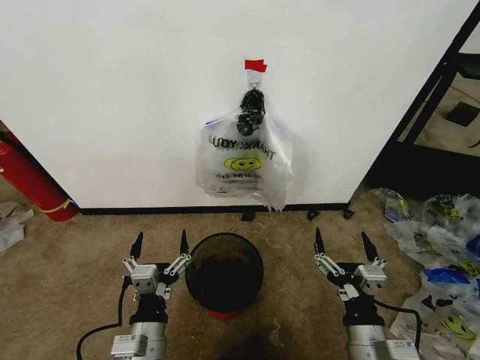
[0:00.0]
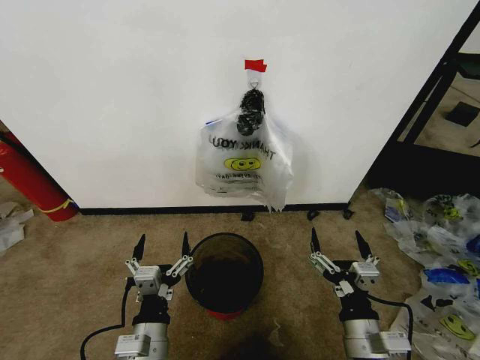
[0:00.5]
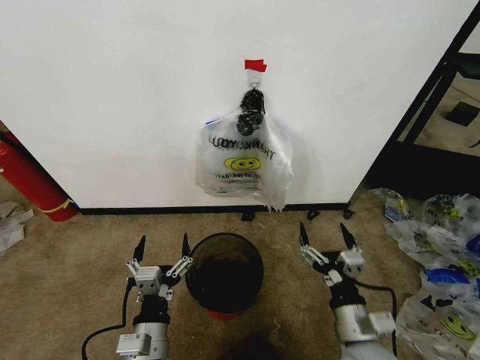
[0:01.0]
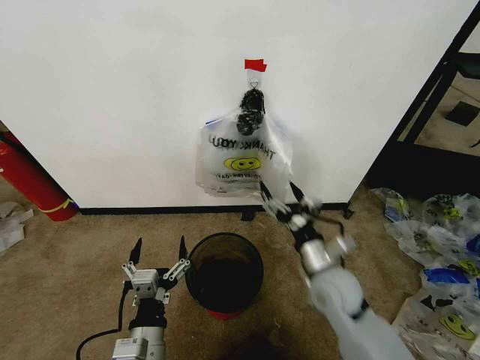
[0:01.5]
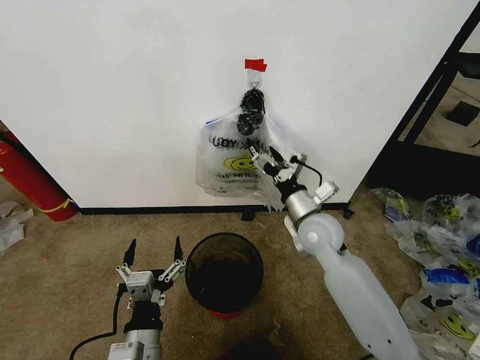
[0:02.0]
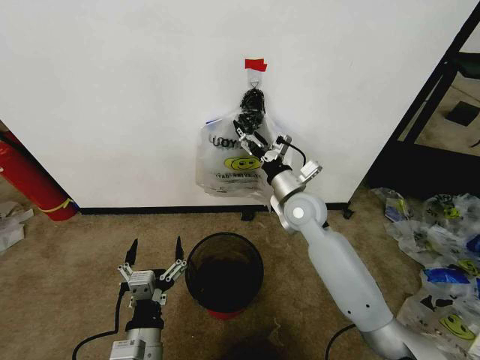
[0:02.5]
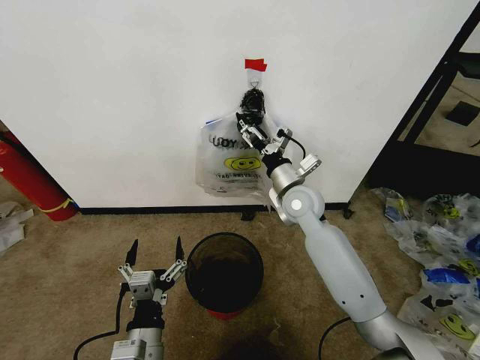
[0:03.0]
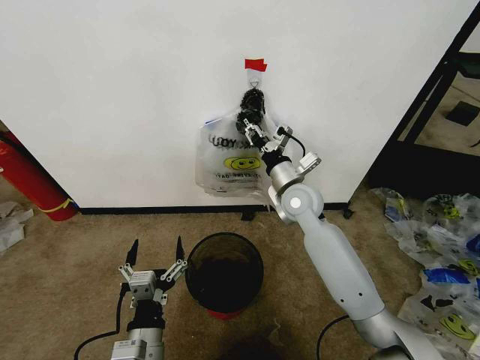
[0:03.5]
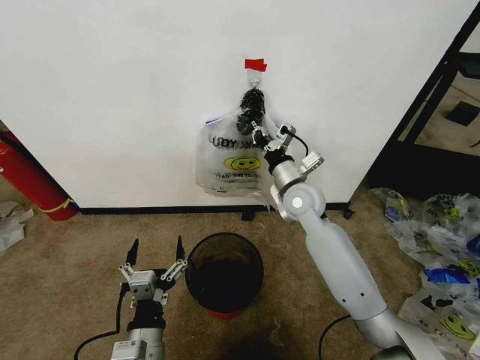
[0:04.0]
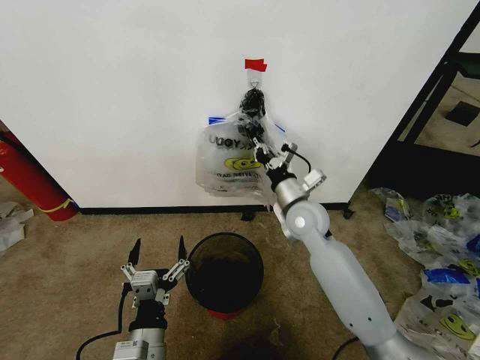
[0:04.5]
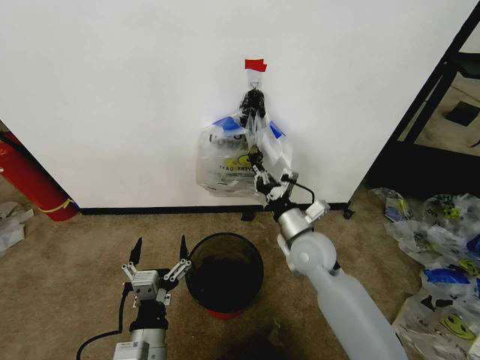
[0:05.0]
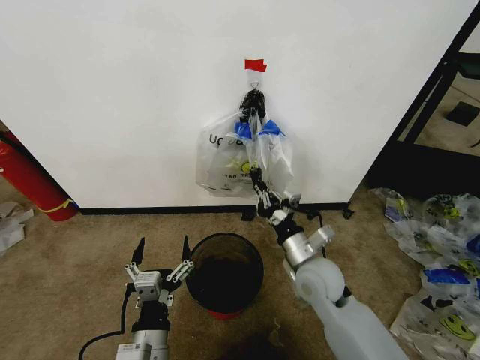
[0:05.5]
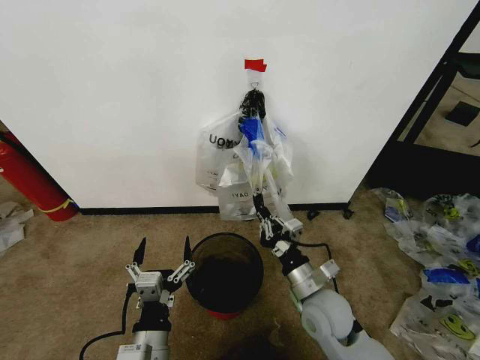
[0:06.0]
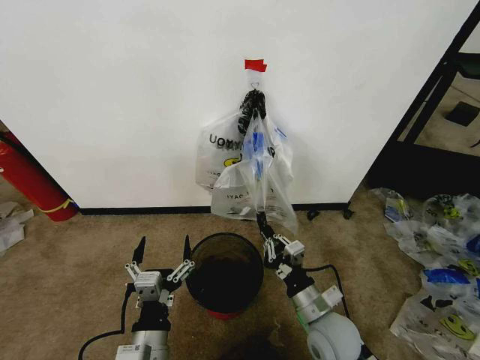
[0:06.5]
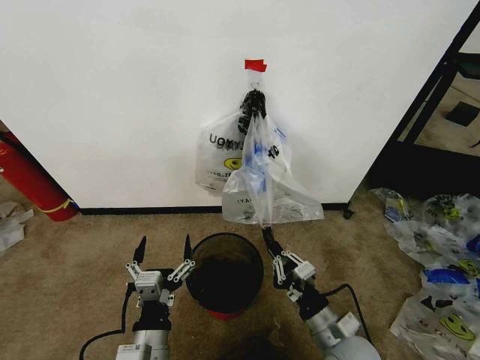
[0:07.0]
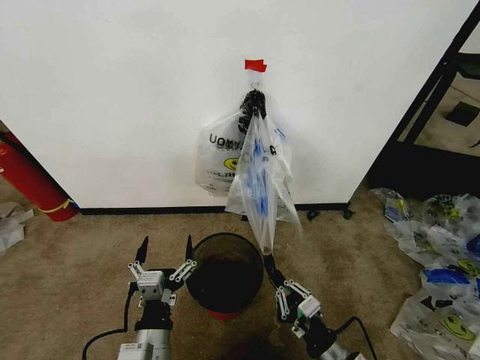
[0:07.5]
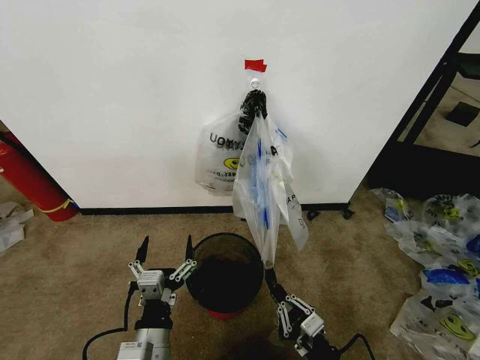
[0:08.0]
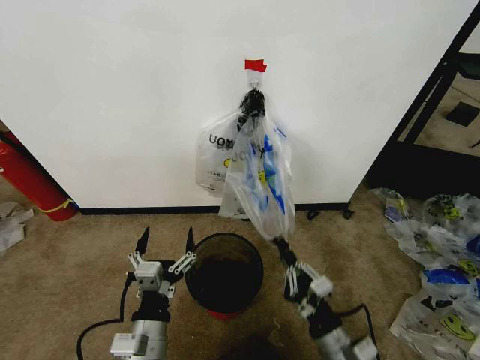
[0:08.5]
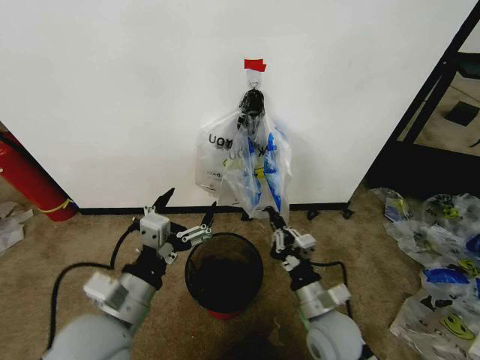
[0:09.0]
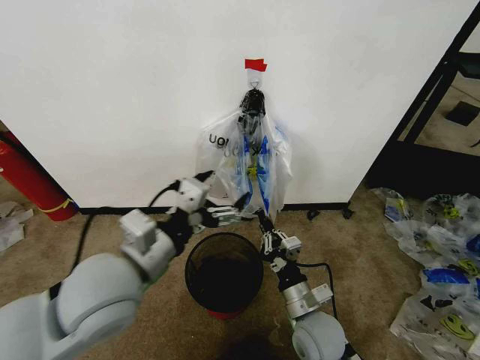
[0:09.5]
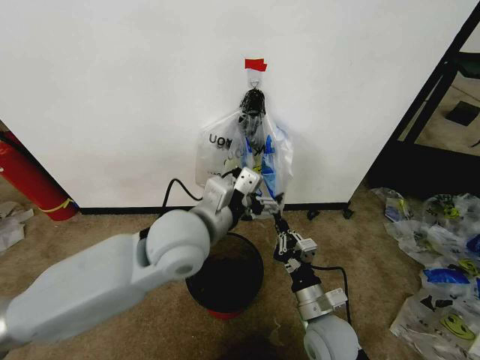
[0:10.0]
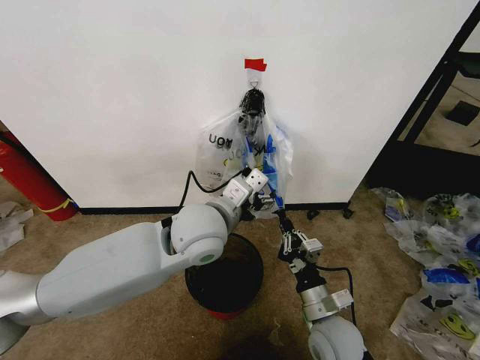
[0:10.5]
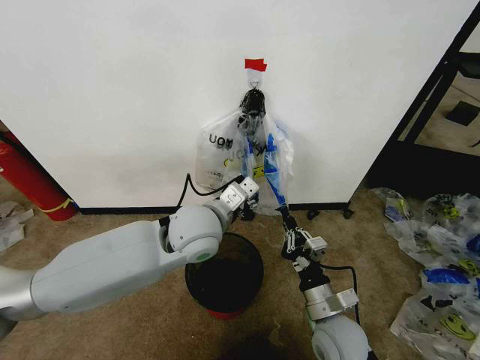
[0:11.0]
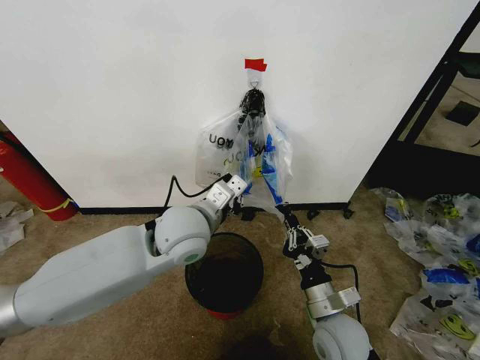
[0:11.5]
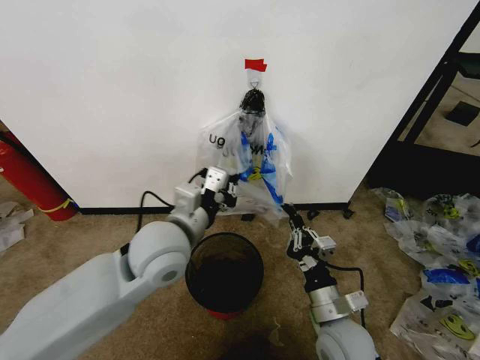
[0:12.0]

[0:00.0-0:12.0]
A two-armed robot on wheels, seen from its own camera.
Task of the whole recording: Pick up the garbage bag from the wall and place it over the trash bin.
0:02.0 to 0:04.0: The right gripper goes approximately 5 cm forward, and closes.
0:04.0 to 0:06.0: The right gripper heads backward and downward, covering roughly 25 cm.
0:06.0 to 0:08.0: The right gripper goes about 15 cm backward and downward.
0:08.0 to 0:10.0: The right gripper is displaced forward by some 10 cm, while the left gripper travels upward and forward by roughly 25 cm.
0:10.0 to 0:12.0: The left gripper closes up.

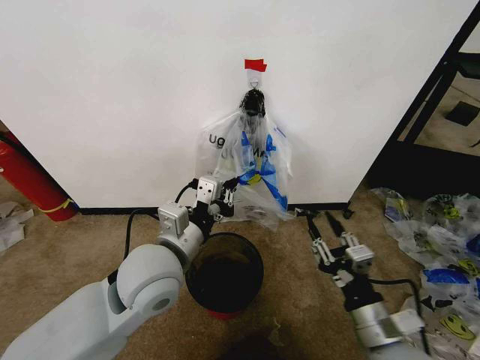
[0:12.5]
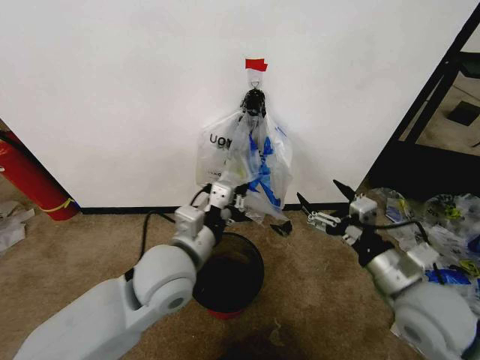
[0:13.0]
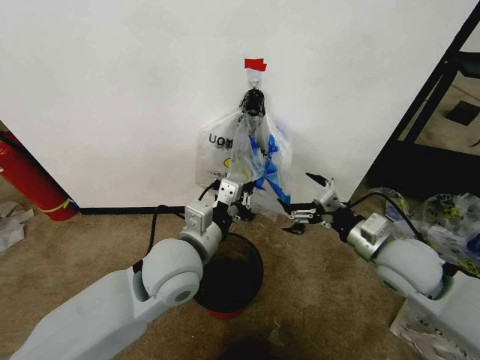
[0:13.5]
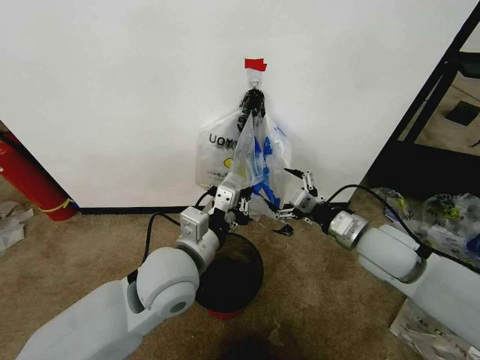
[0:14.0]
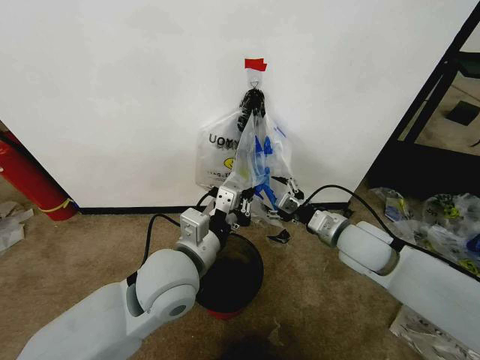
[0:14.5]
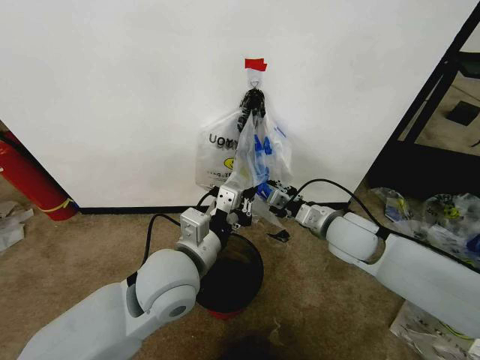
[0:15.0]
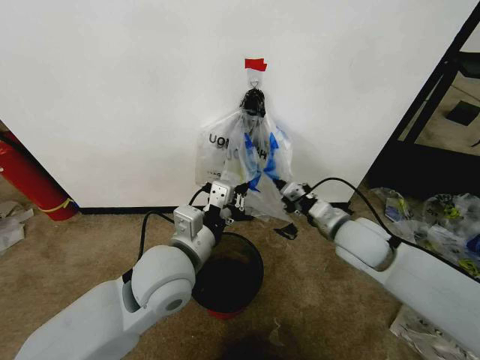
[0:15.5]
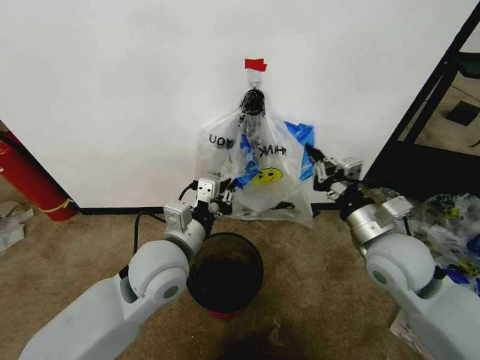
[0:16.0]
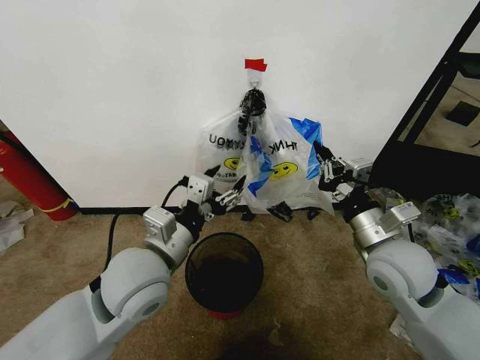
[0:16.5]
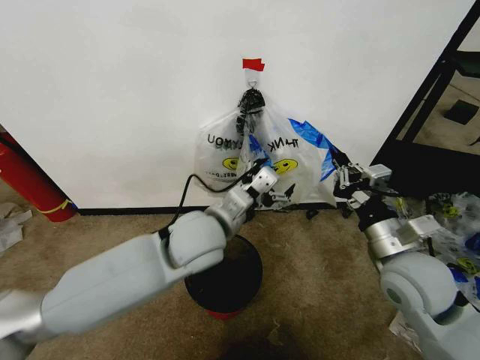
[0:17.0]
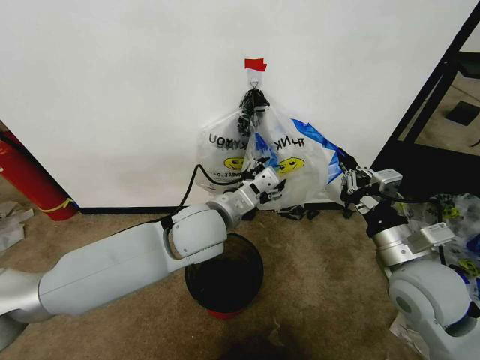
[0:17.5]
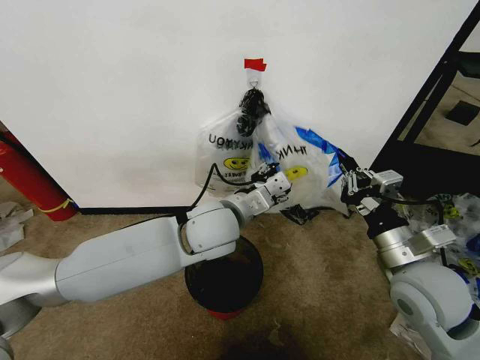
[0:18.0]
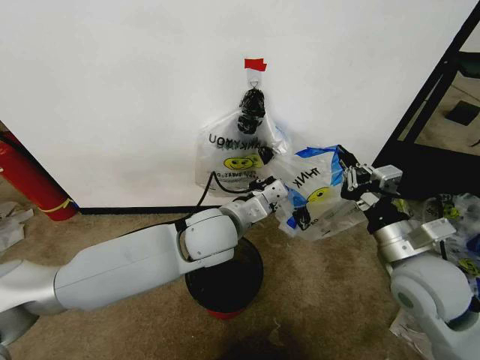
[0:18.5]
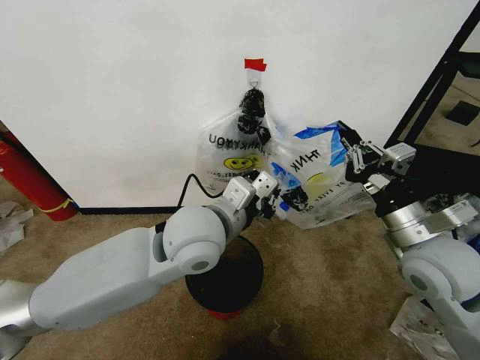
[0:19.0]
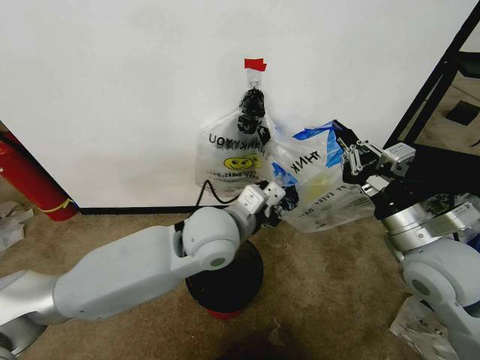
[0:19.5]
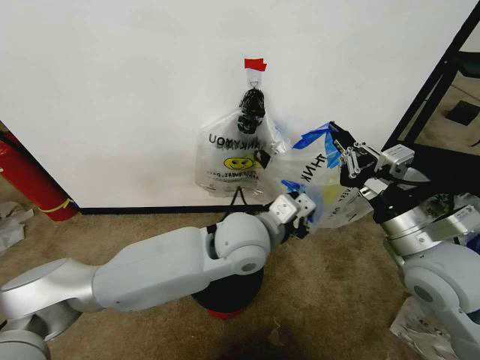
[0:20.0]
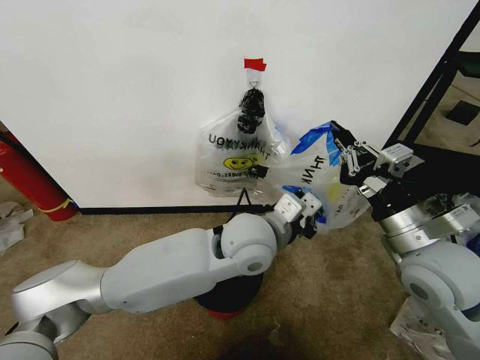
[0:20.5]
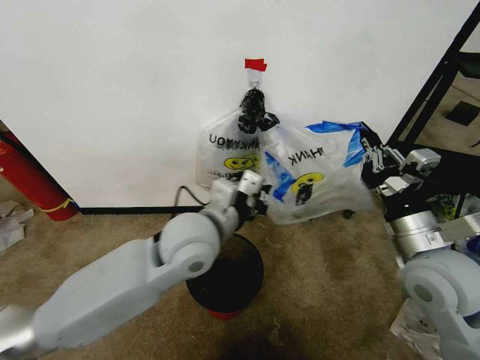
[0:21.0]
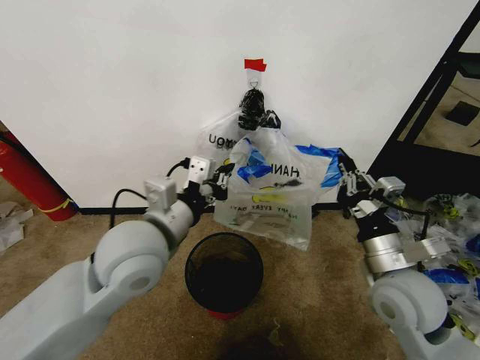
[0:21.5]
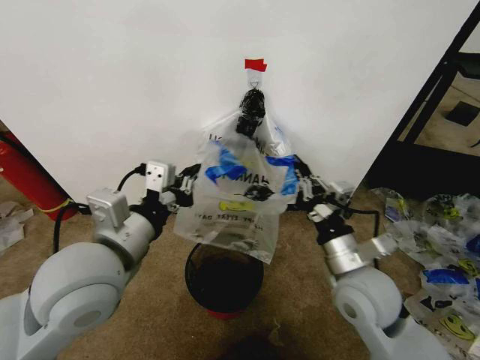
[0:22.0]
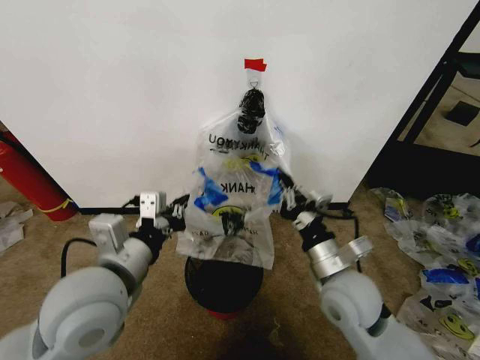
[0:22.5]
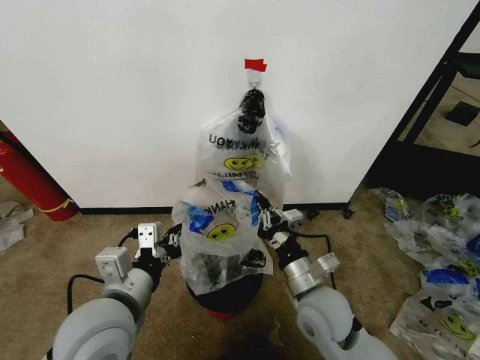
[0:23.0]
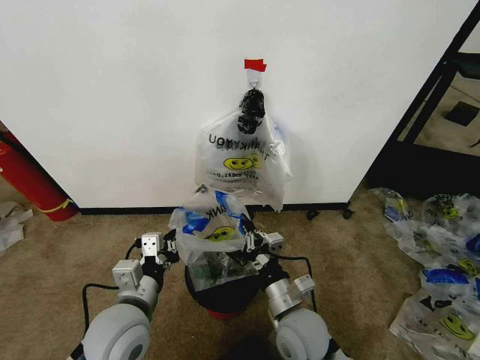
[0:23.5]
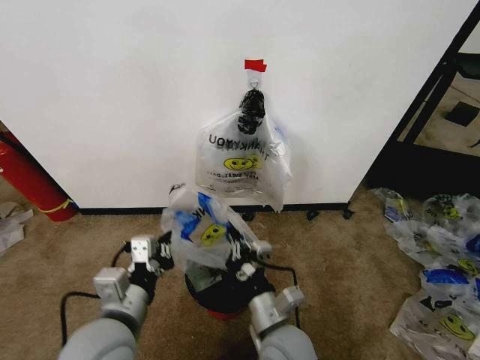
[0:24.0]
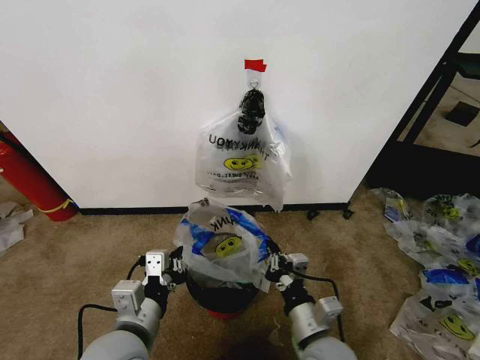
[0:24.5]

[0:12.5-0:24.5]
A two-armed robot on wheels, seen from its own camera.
Task of the whole recording: Pick up the garbage bag from the wall and place it over the trash bin.
0:12.5 to 0:14.5: The right gripper heads forward, covering roughly 20 cm, and opens its fingers.
0:14.5 to 0:16.5: The right gripper heads backward, covering about 5 cm, and closes its fingers. Meanwhile the left gripper opens up.
0:16.5 to 0:18.5: The left gripper heads to the right and forward, covering roughly 15 cm, and closes its fingers.
0:18.5 to 0:20.5: The left gripper moves to the right, approximately 5 cm.
0:20.5 to 0:22.5: The right gripper goes some 15 cm downward and to the left. Meanwhile the left gripper moves to the left and backward, roughly 25 cm.
0:22.5 to 0:24.5: The right gripper travels backward and downward by some 10 cm, and travels to the left and back again, some 10 cm each way. The left gripper heads downward, covering about 10 cm.

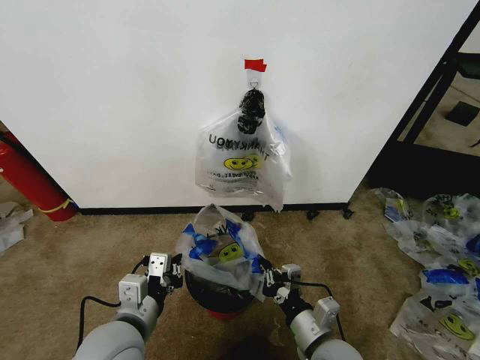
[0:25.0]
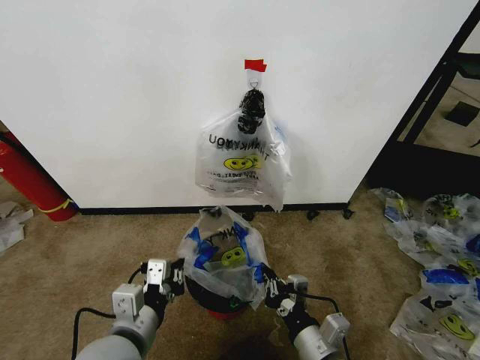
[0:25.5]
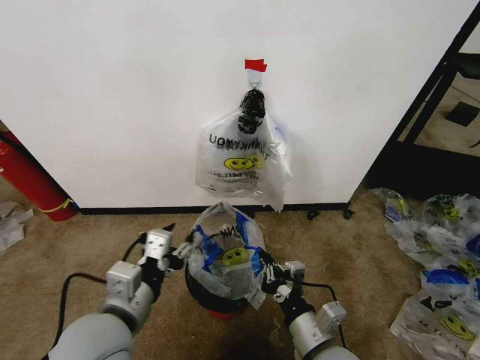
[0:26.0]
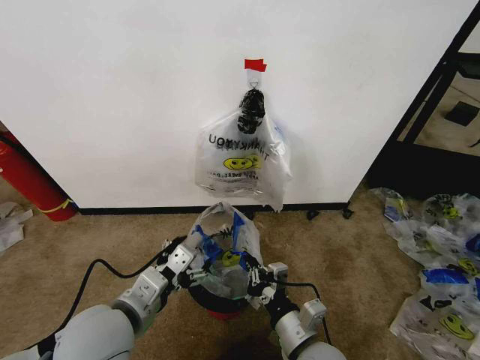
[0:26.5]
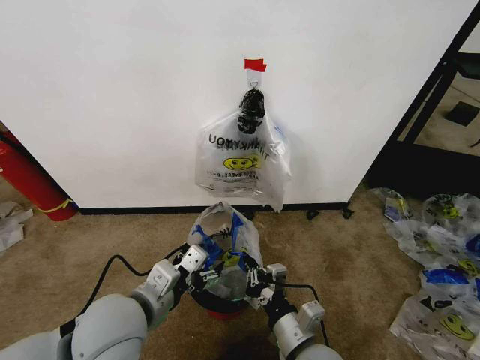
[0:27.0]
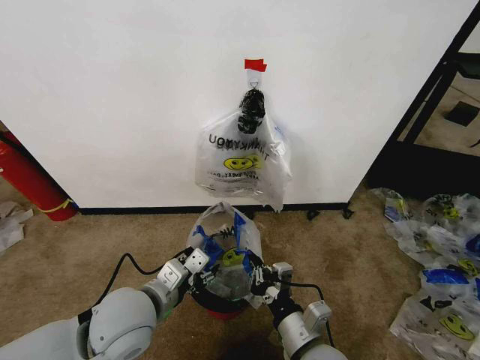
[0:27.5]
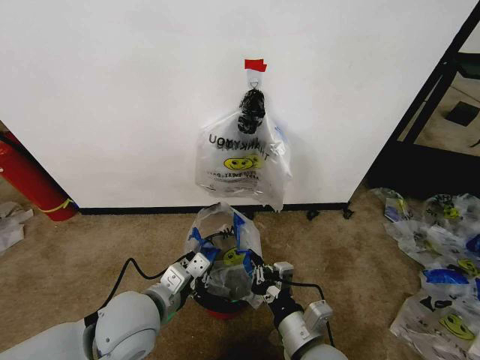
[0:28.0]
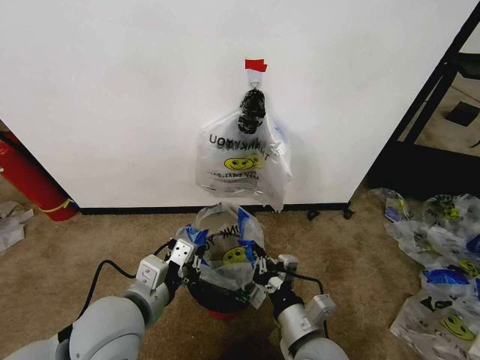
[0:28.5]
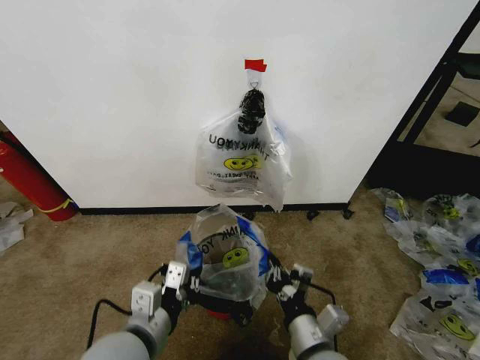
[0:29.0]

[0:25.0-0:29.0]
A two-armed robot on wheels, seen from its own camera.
Task of the whole recording: Pick up the garbage bag from the wall and place it over the trash bin.
0:25.0 to 0:27.0: The left gripper moves approximately 5 cm, and opens up.
0:27.0 to 0:29.0: The left gripper closes up.
